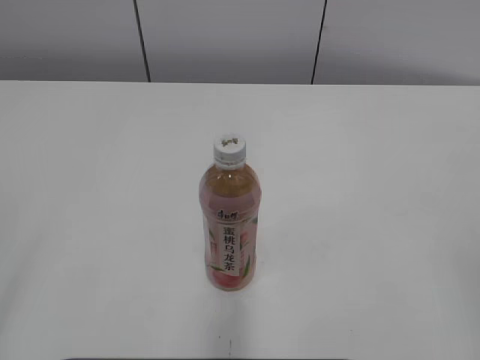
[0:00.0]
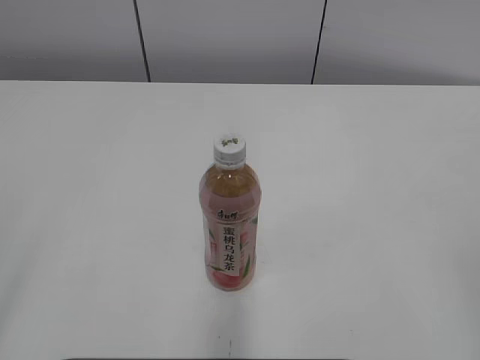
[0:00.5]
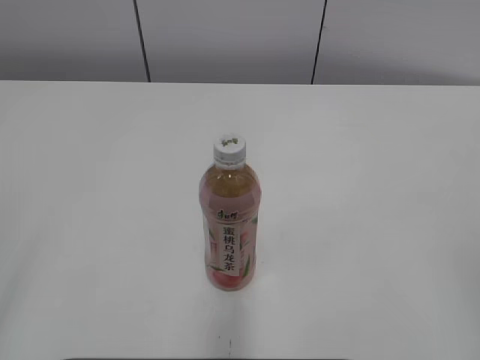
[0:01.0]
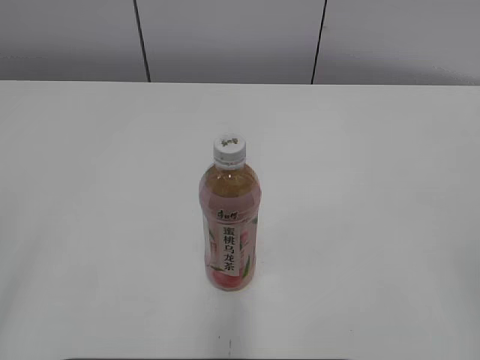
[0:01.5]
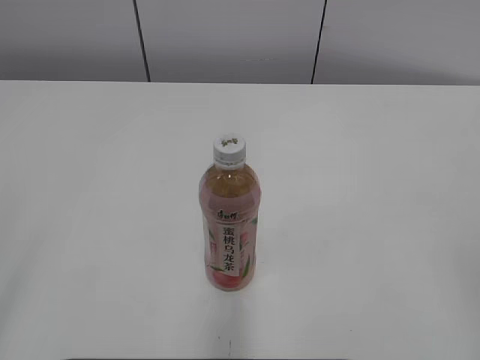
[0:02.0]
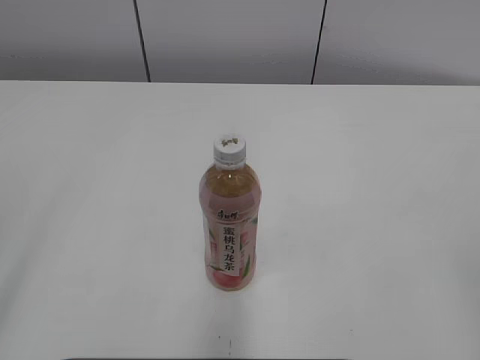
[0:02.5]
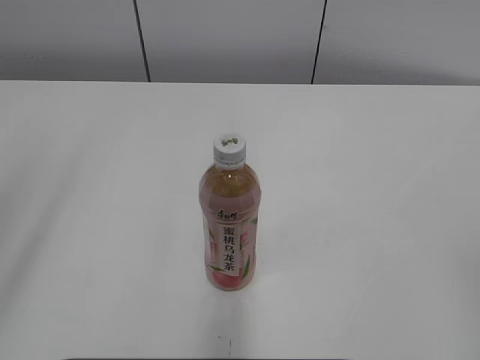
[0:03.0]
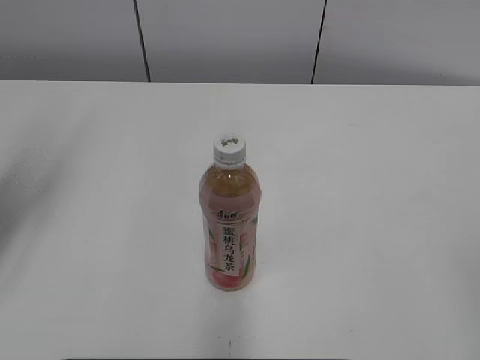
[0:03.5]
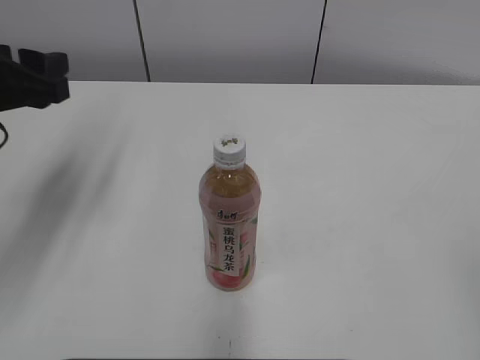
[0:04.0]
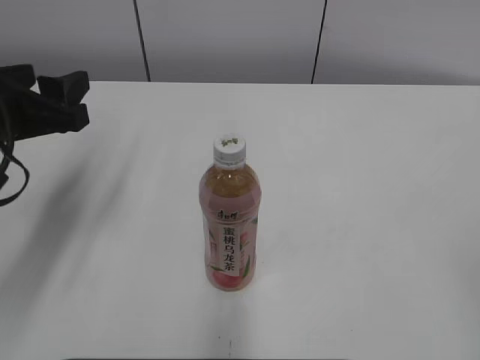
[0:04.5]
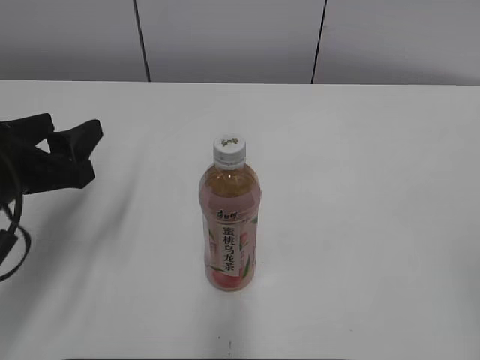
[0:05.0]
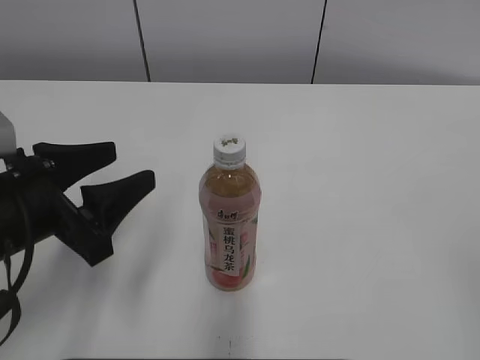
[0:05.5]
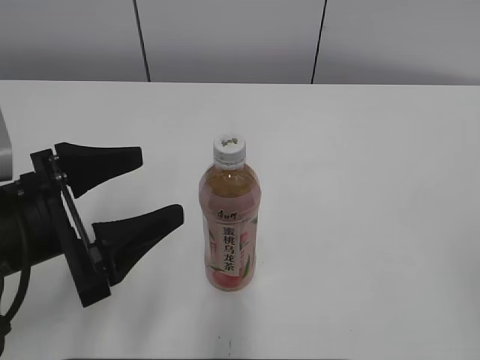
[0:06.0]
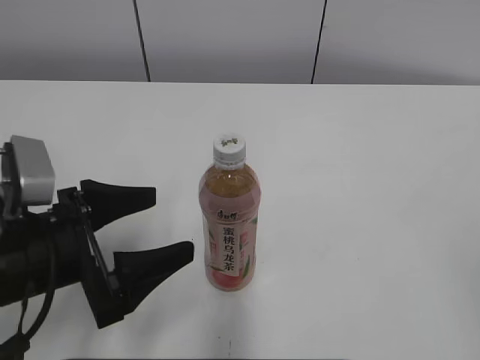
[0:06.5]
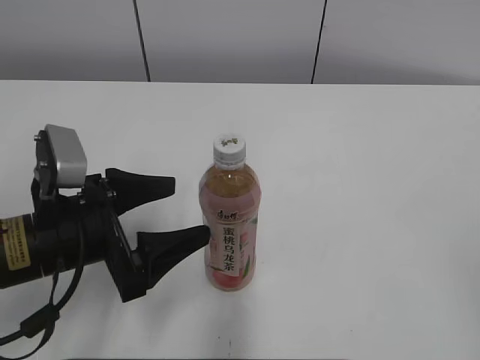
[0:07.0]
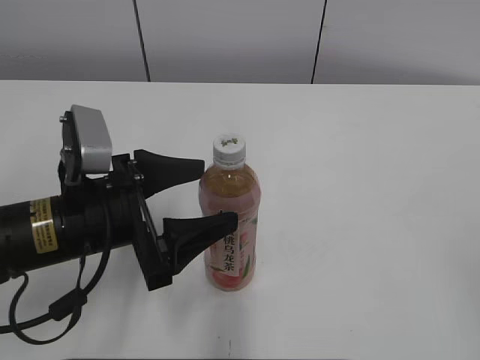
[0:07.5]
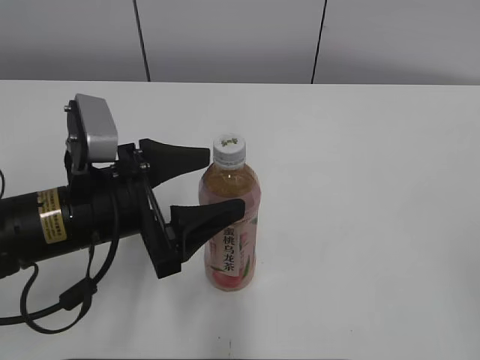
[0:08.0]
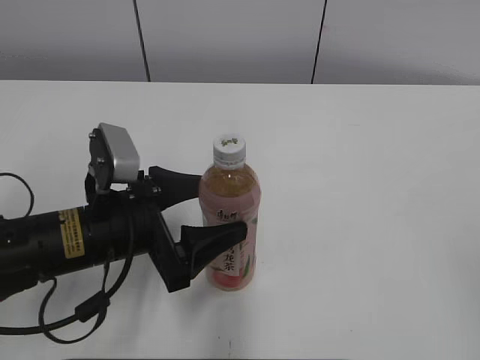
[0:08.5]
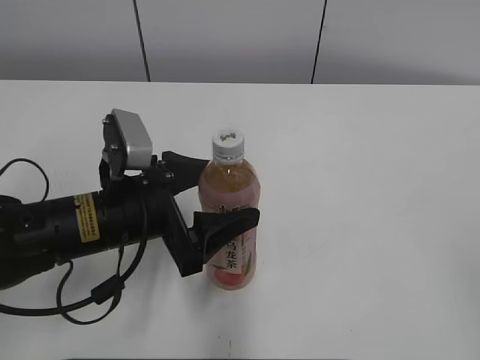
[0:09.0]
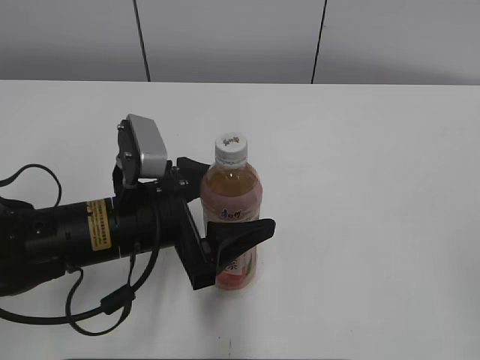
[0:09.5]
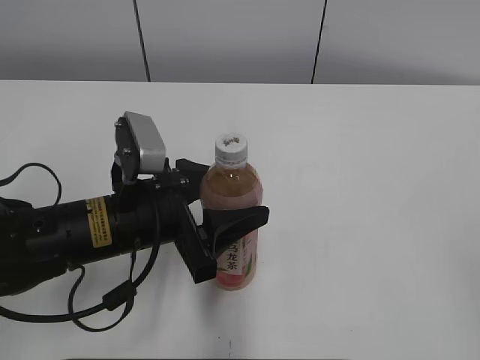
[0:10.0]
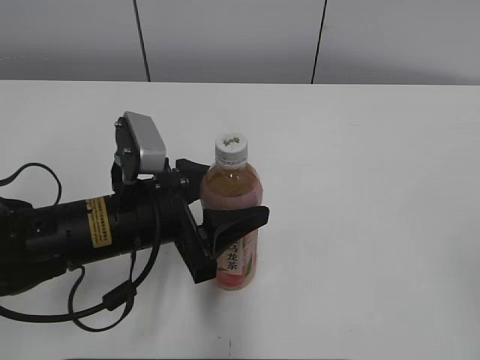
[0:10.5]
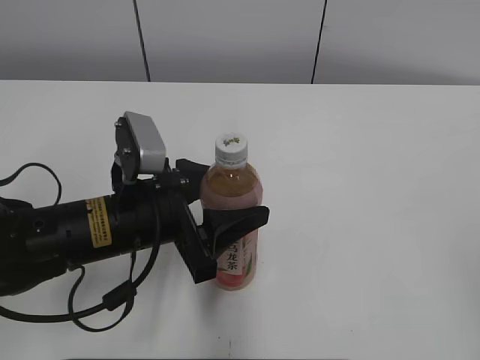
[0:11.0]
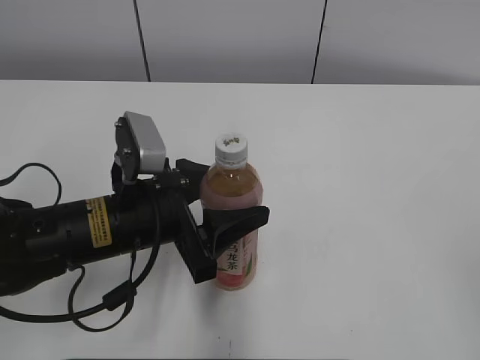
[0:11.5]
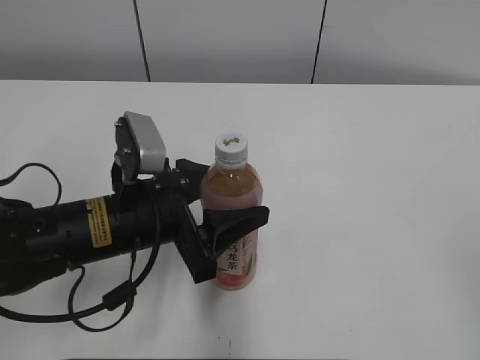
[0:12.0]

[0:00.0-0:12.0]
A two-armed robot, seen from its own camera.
Step, 0:00.0 to 0:09.5: Grab the Peach Oolong Tea with the left hand.
0:02.0 to 0:04.0: The left gripper shifts roughly 25 cm forward, and closes its fingers.
0:04.0 to 0:06.0: The left gripper shifts roughly 15 cm backward, downward and to the right, and opens.
0:06.0 to 0:08.0: The left gripper changes place by about 5 cm.
0:08.0 to 0:10.0: The left gripper closes.
0:10.0 to 0:12.0: Both grippers stay put.

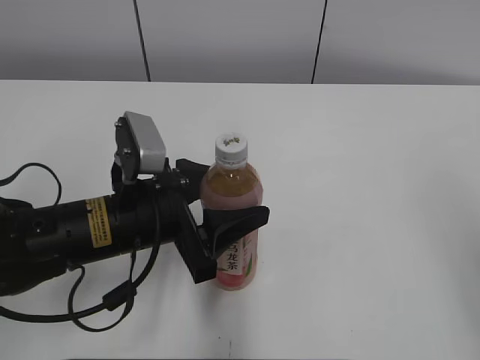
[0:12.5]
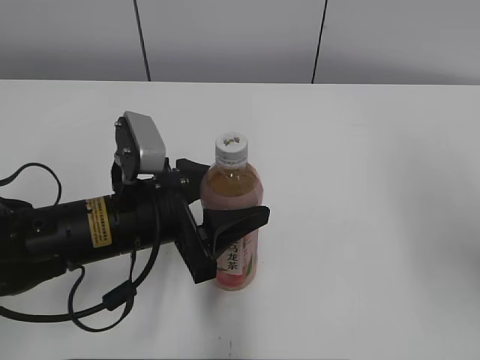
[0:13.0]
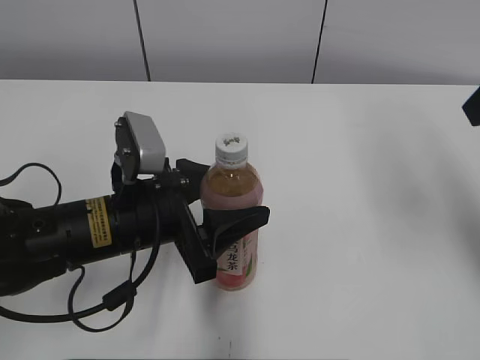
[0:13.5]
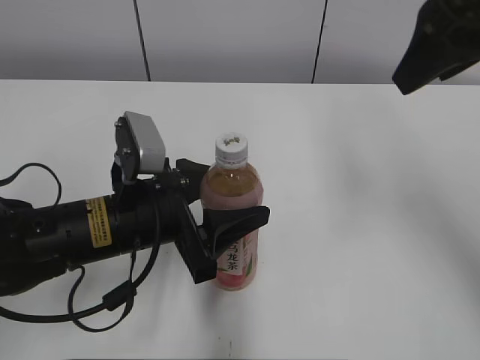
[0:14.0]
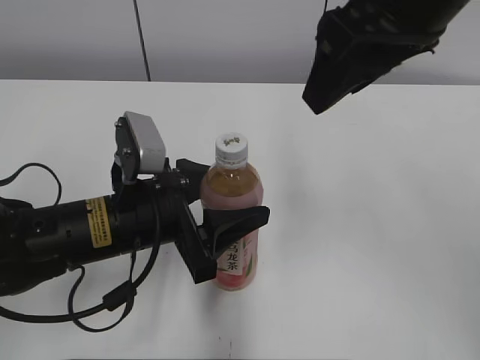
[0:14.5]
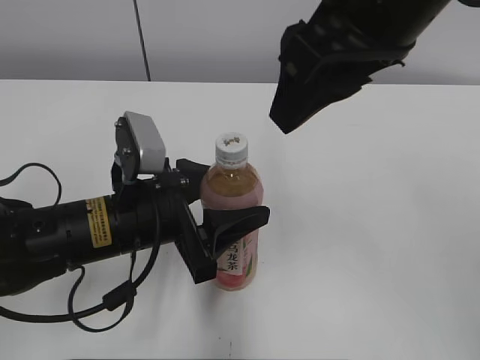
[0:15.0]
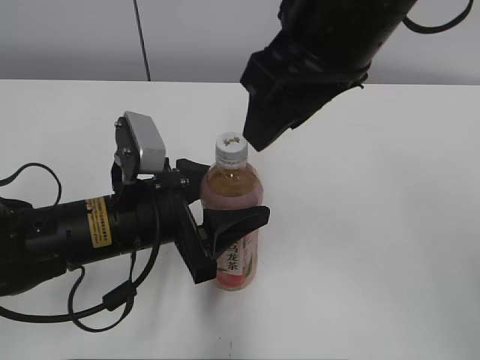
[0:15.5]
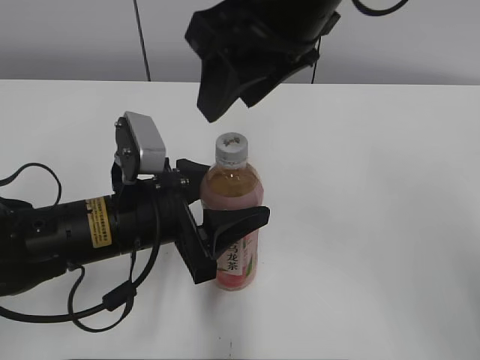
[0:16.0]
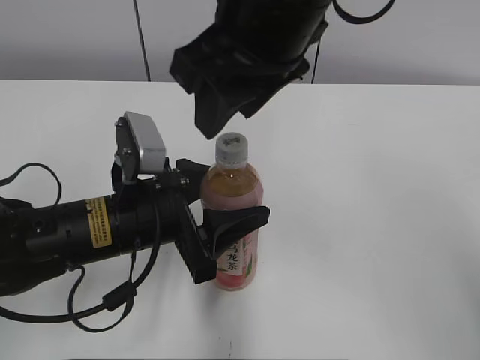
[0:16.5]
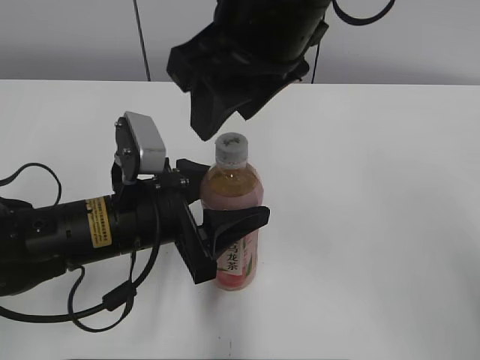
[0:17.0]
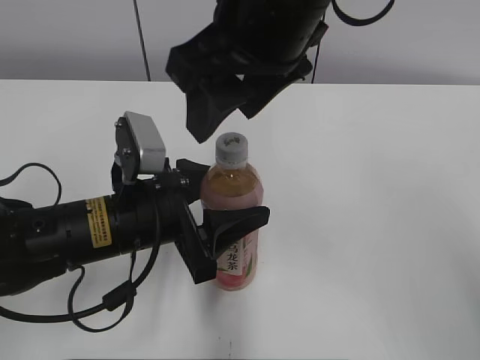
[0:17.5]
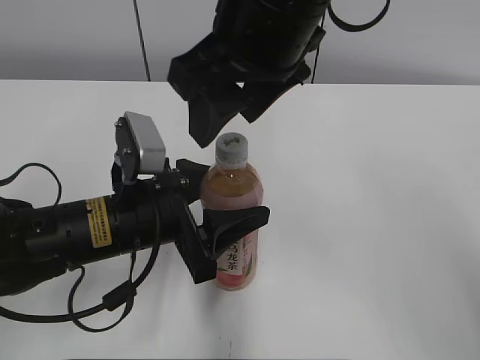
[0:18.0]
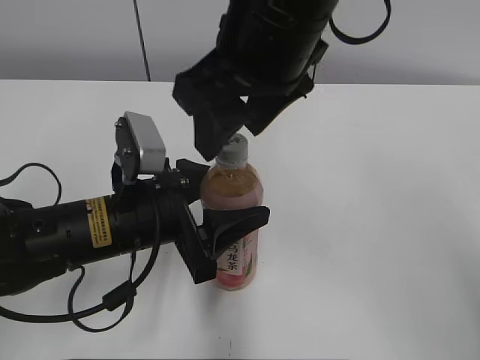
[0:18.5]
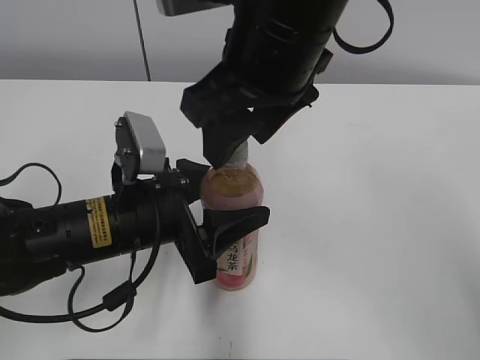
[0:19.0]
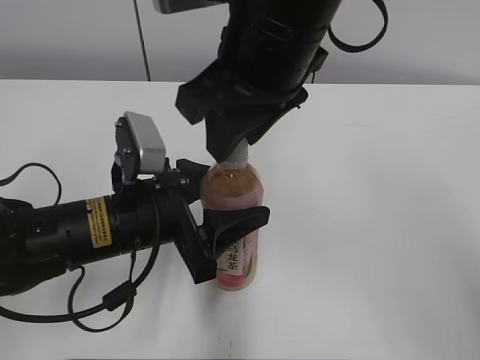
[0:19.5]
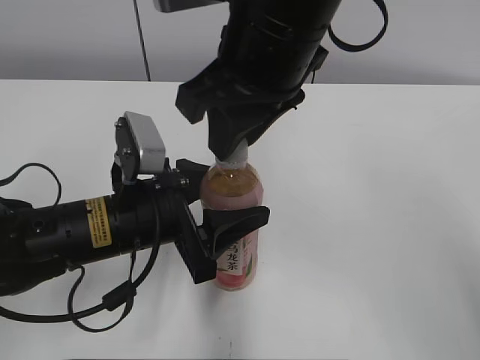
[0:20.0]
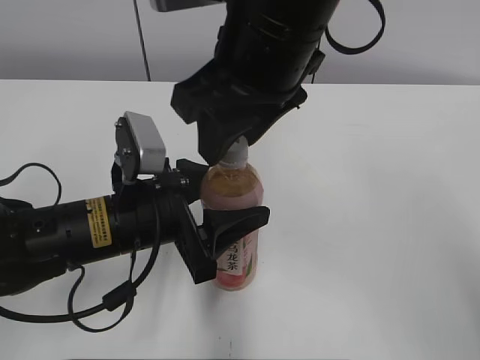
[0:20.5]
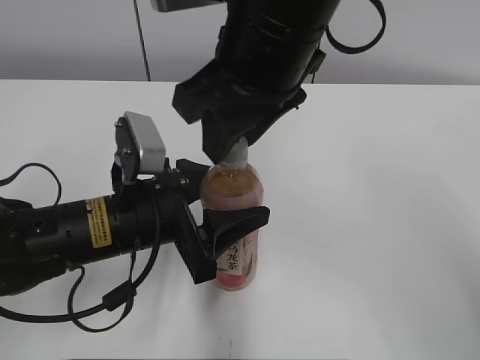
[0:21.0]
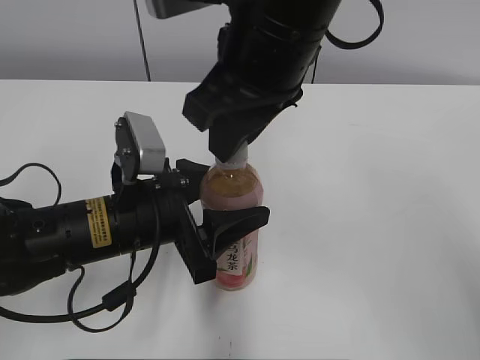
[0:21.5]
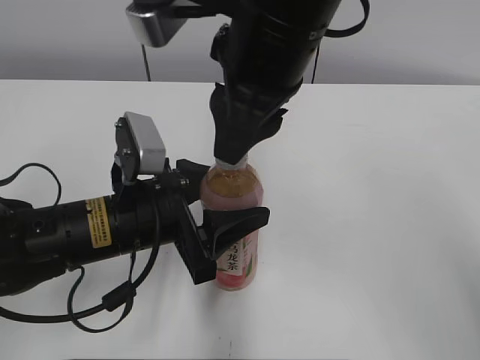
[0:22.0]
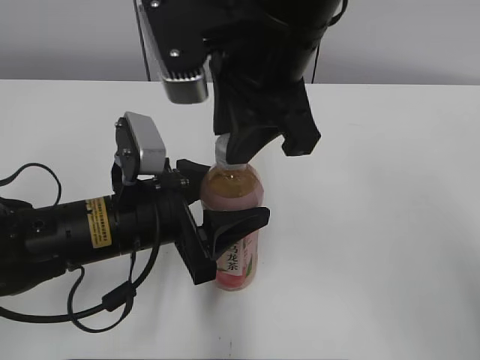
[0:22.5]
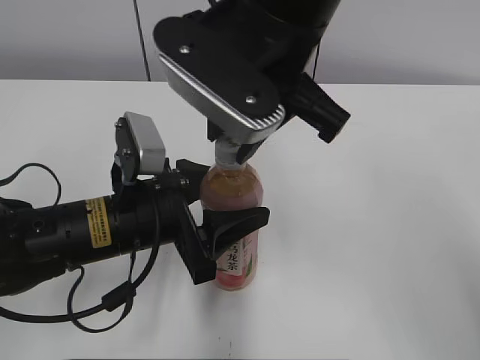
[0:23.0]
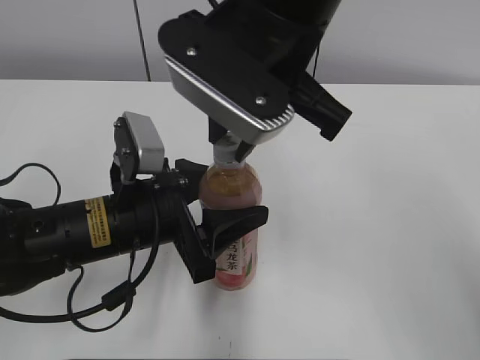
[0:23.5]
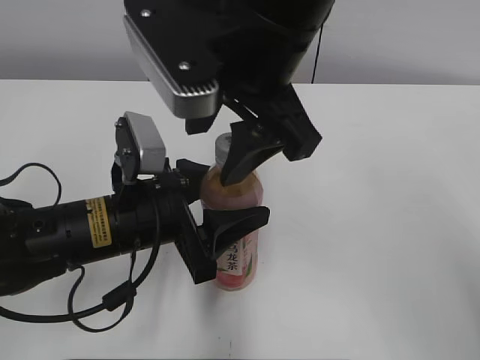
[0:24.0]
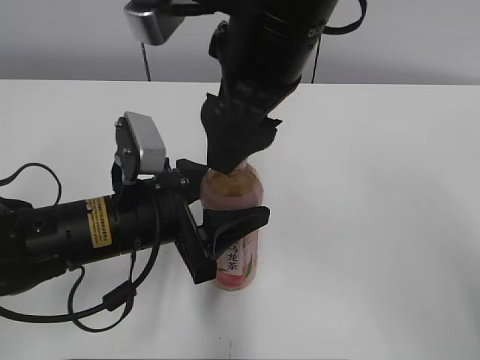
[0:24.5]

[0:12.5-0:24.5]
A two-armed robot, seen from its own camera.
0:12.5 to 0:14.5: The right gripper heads forward and to the left, covering some 25 cm.
0:14.5 to 0:16.5: The right gripper moves to the left, roughly 10 cm.
0:16.5 to 0:18.5: The grippers stay close to where they were, moving slightly.
0:18.5 to 0:20.5: The right gripper closes and opens again.
0:20.5 to 0:22.5: The right gripper closes.
0:22.5 to 0:24.5: The right gripper opens.

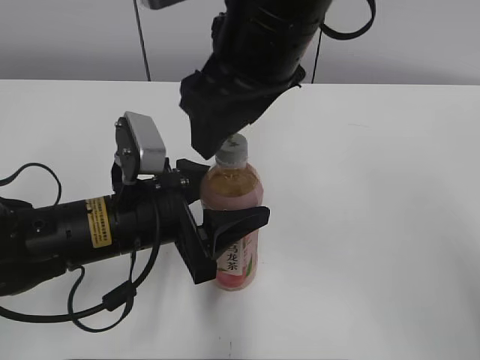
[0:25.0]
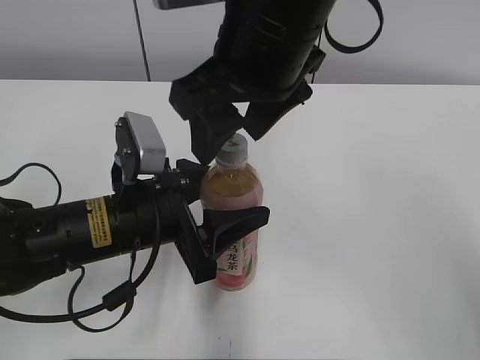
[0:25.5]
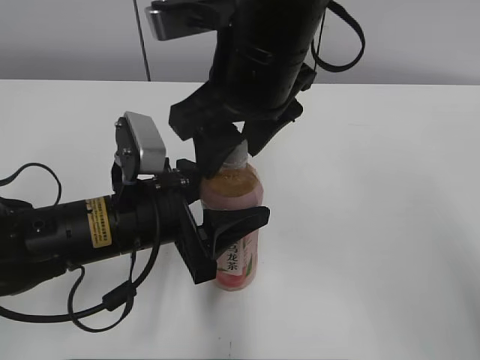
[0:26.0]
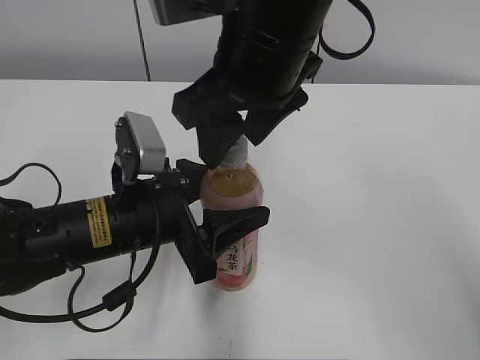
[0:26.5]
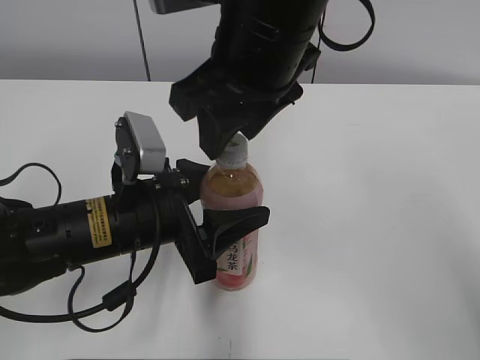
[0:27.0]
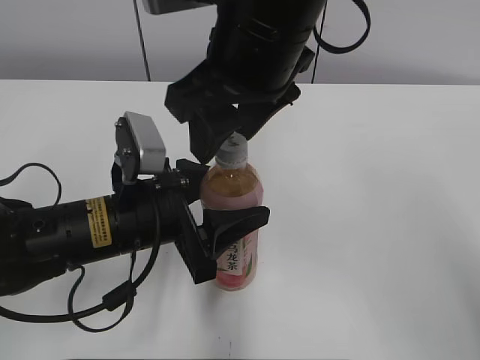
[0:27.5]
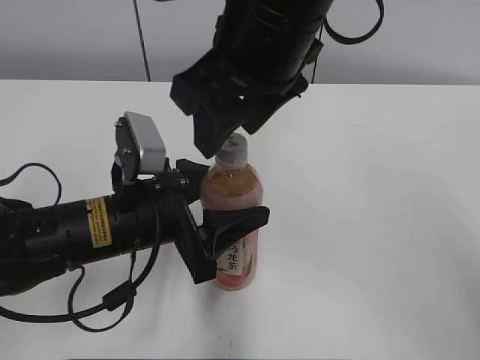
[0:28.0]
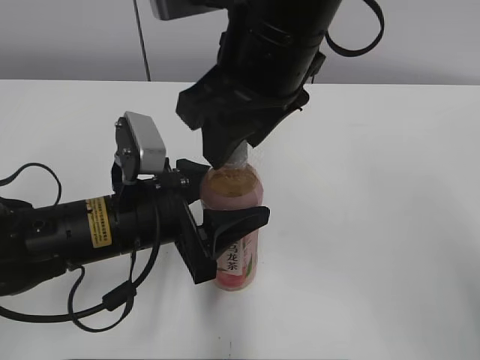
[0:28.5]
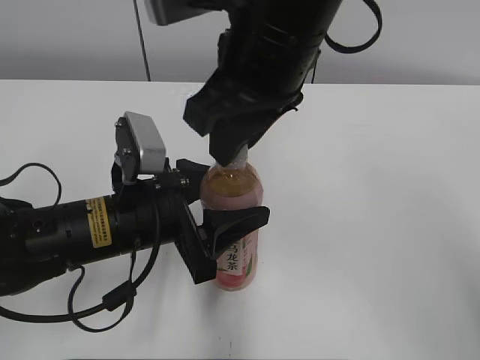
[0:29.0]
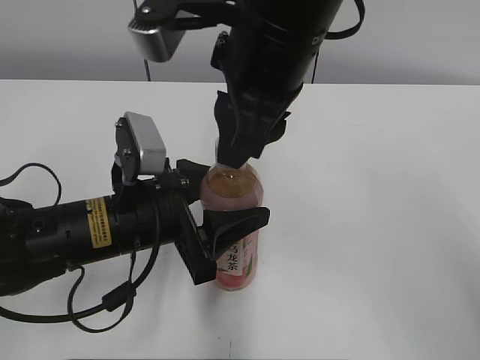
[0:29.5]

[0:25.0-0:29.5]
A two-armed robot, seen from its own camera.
0:25.0 to 0:27.0: The right gripper closes.
0:27.0 to 0:29.5: The right gripper closes.
